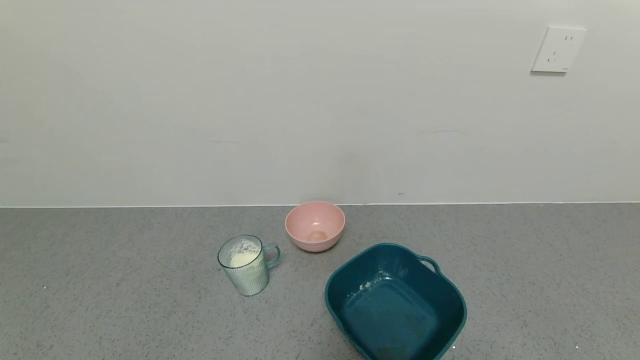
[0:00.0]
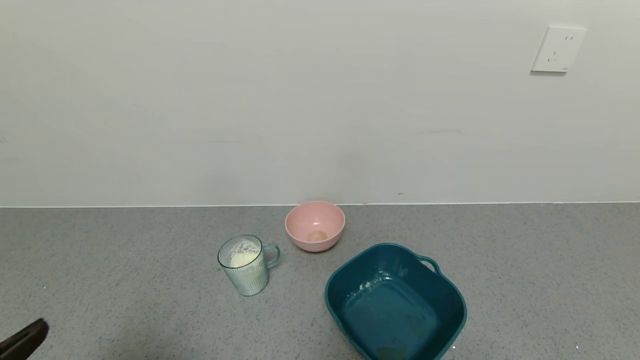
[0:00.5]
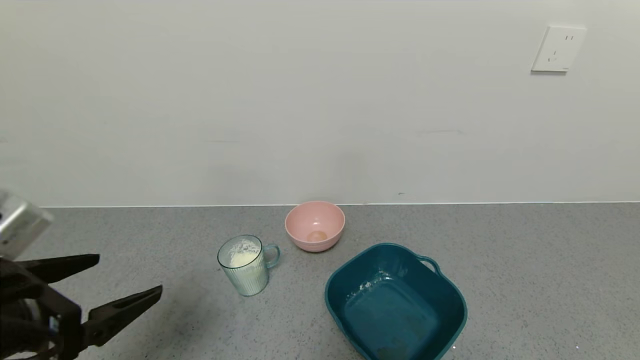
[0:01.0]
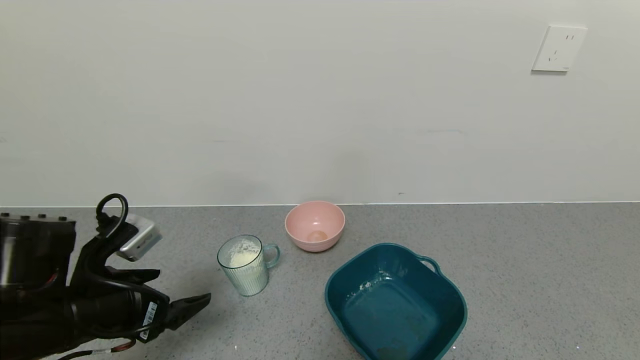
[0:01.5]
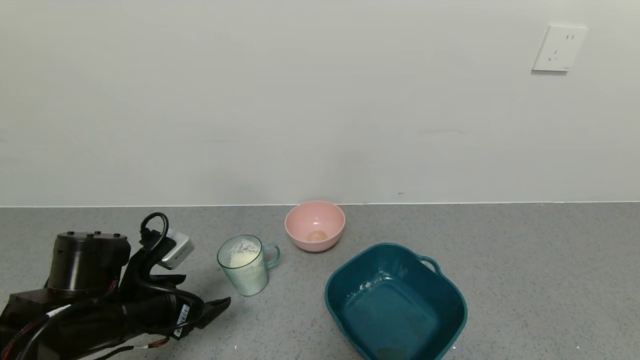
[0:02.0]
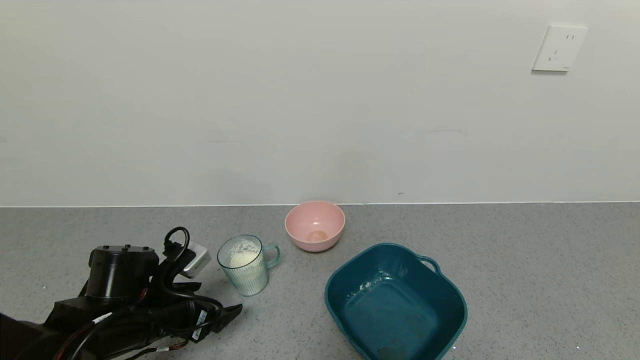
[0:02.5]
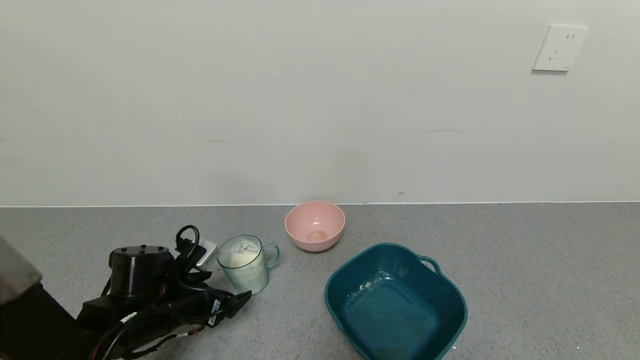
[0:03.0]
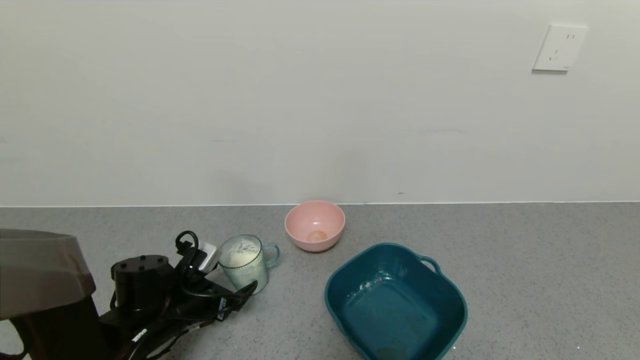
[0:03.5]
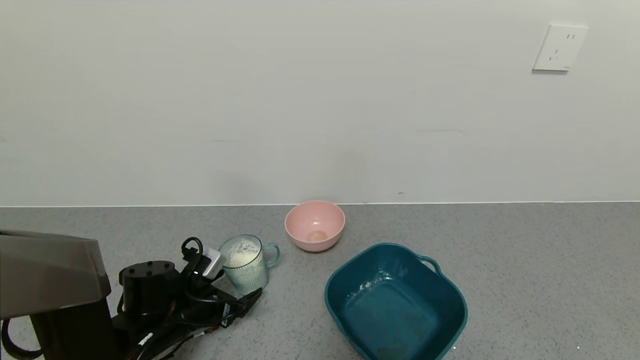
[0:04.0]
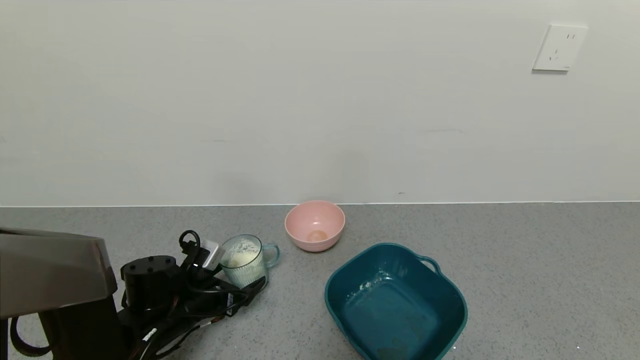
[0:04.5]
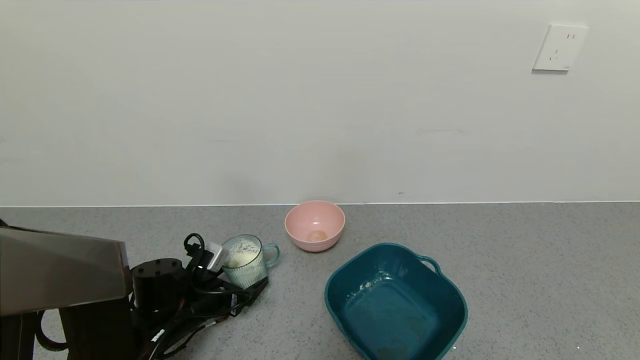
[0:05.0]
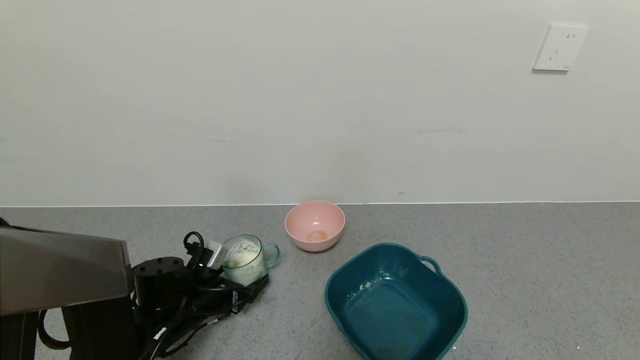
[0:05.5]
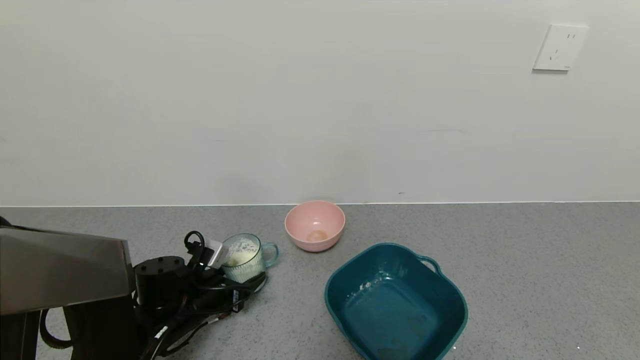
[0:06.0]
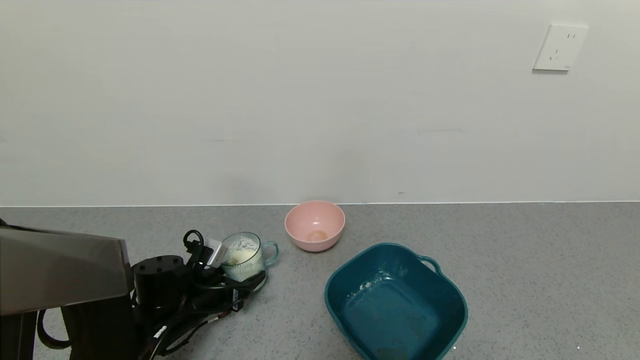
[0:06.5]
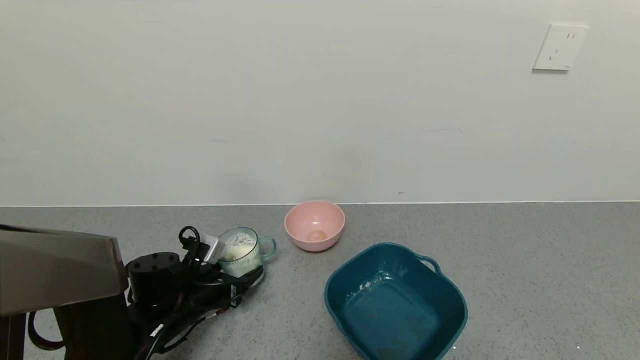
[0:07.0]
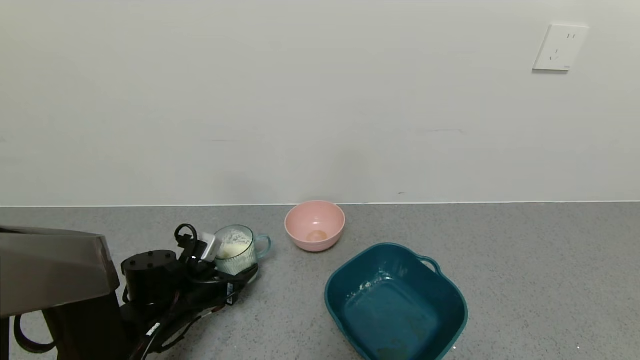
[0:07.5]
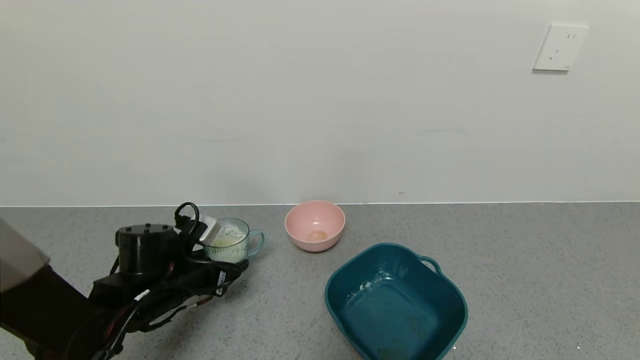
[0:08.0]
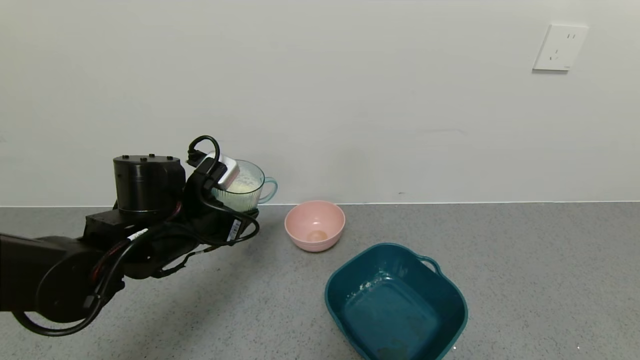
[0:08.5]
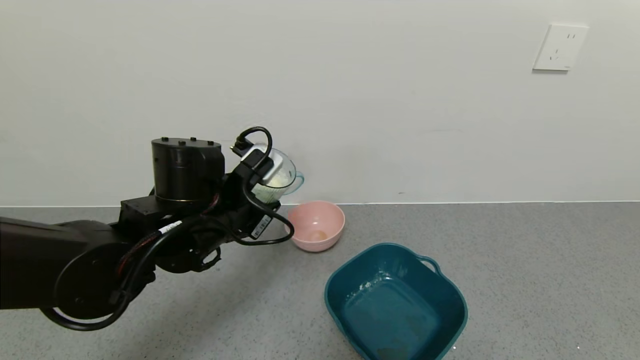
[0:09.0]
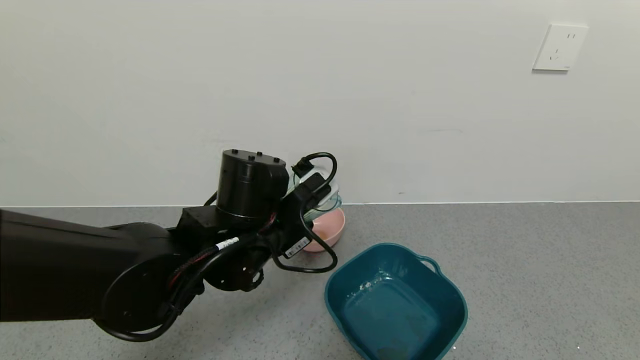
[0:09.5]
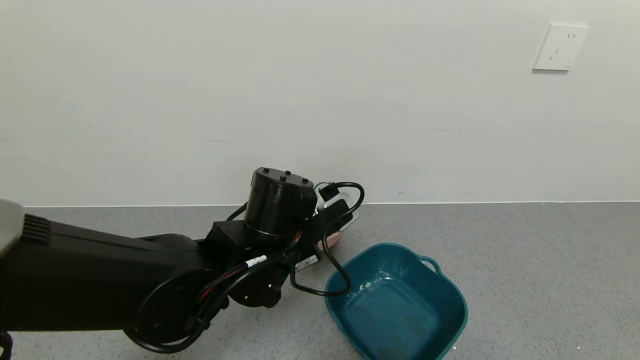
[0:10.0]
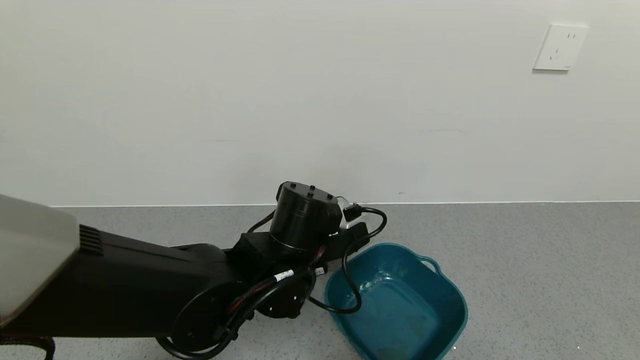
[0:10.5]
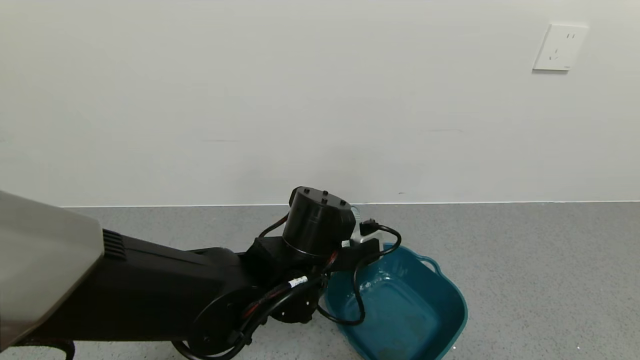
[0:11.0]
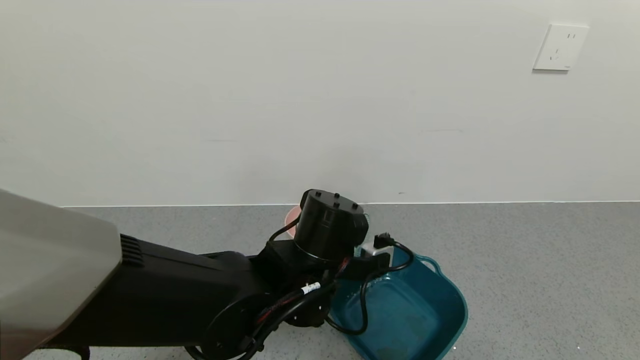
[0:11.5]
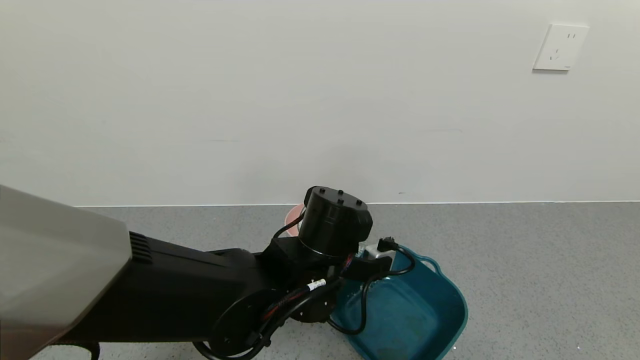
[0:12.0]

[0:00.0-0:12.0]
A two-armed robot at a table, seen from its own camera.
Task of the whole recording: use a gripper to pick up the cup and pour the powder into a bowl or tray.
Step, 0:00.0 to 0:06.0: Grasp the glass of powder with the left gripper.
0:00.0 to 0:02.0: The left gripper heads forward, covering roughly 25 cm.
0:02.0 to 0:04.0: The left gripper travels downward by some 10 cm.
0:04.0 to 0:06.0: The left gripper closes.
0:06.0 to 0:08.0: The left gripper moves upward, approximately 5 cm.
0:08.0 to 0:10.0: The left gripper heads to the right and upward, covering some 20 cm.
0:10.0 to 0:12.0: The left gripper shifts by approximately 5 cm.

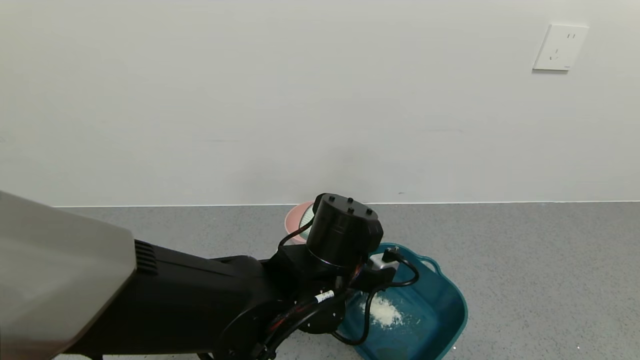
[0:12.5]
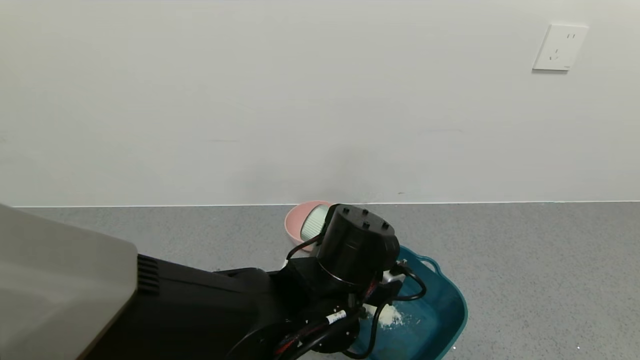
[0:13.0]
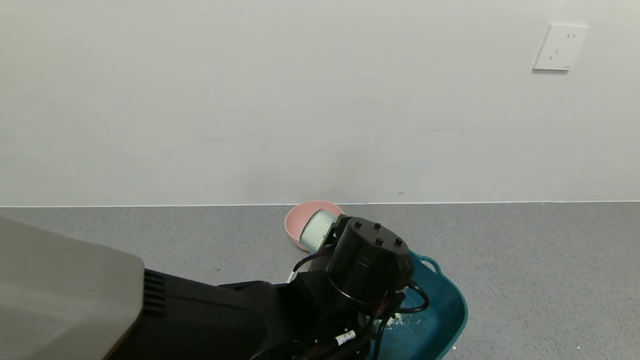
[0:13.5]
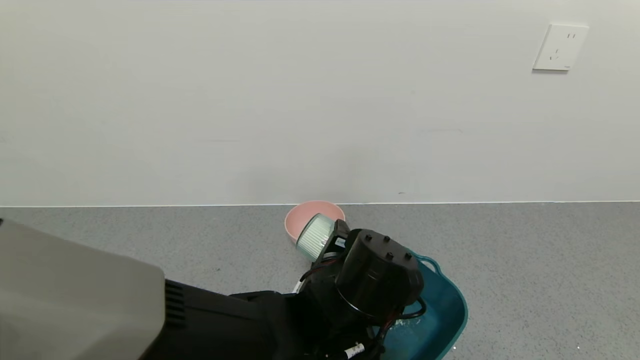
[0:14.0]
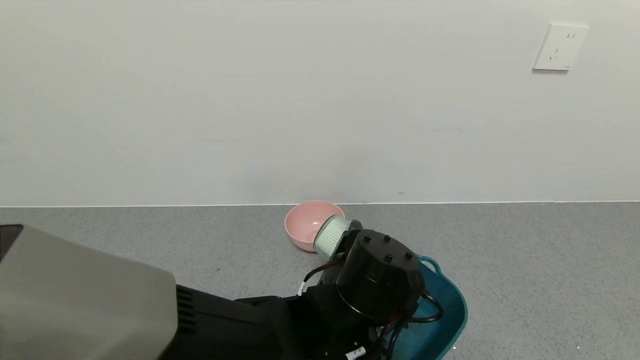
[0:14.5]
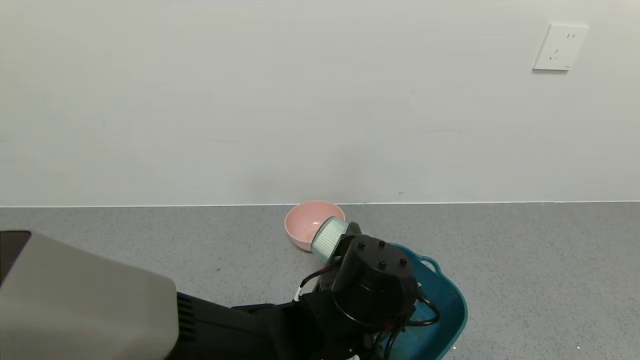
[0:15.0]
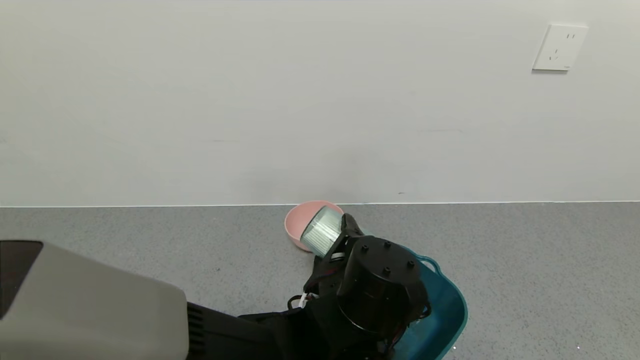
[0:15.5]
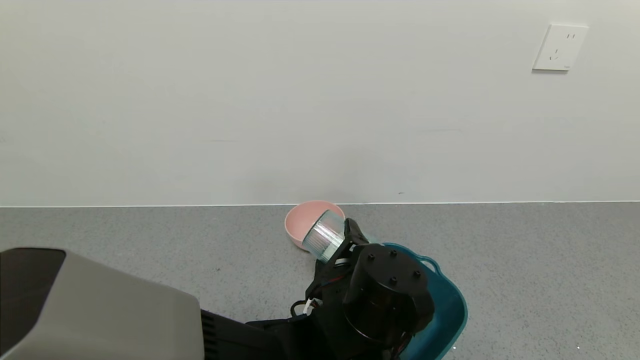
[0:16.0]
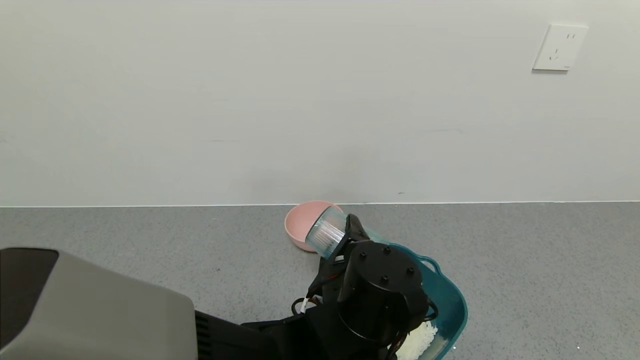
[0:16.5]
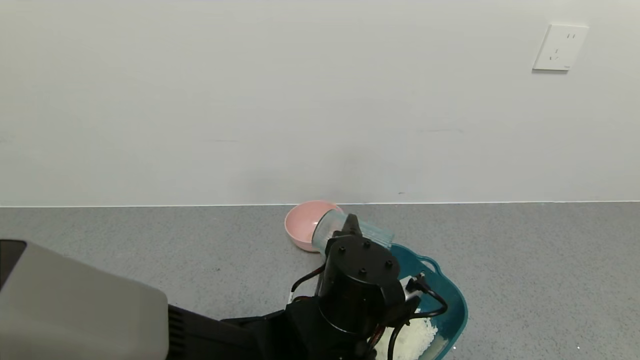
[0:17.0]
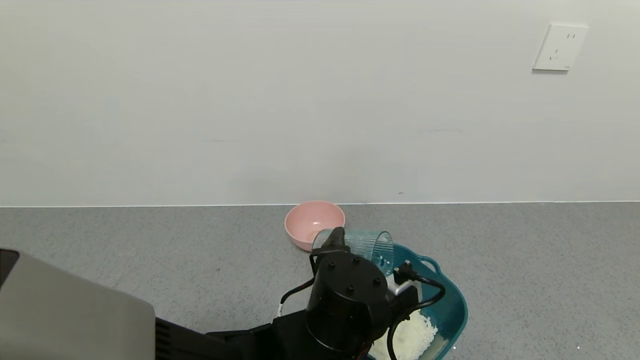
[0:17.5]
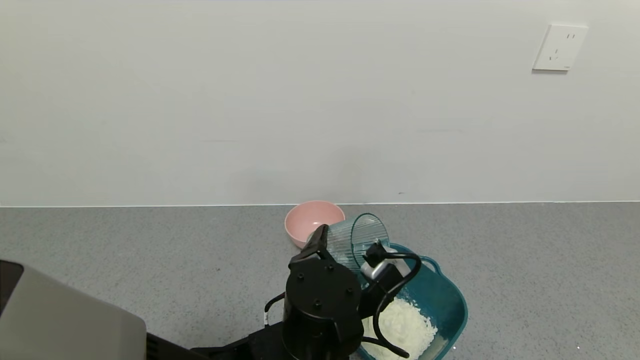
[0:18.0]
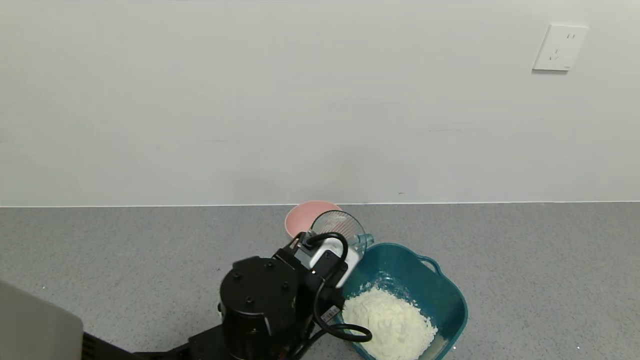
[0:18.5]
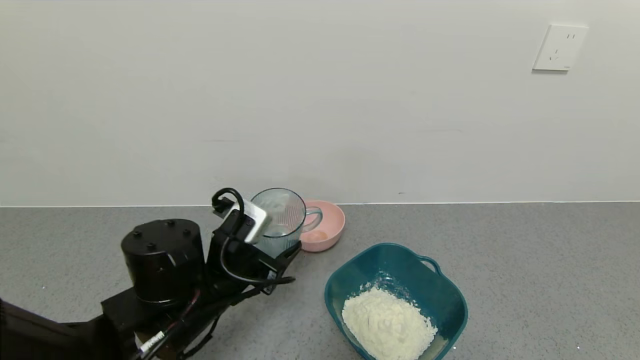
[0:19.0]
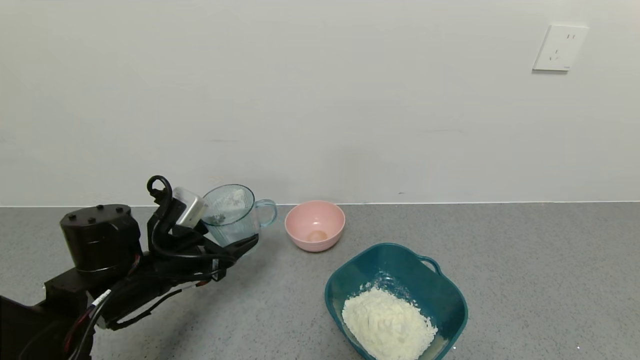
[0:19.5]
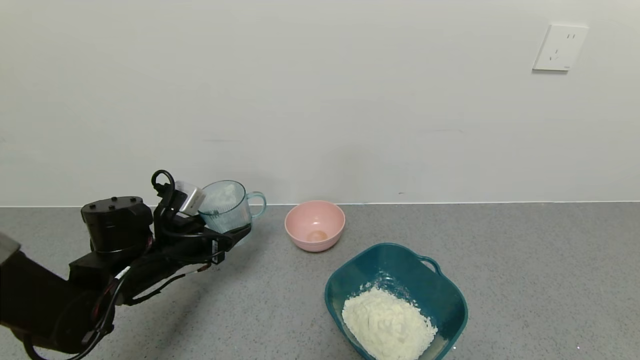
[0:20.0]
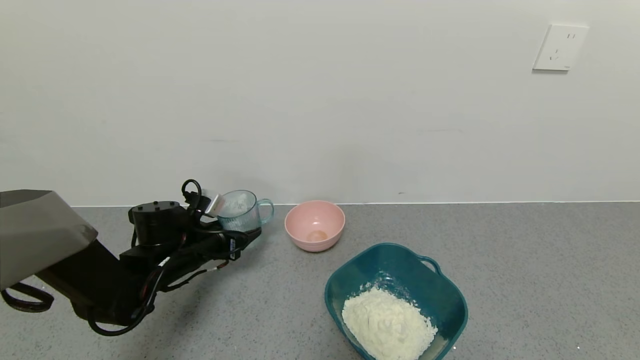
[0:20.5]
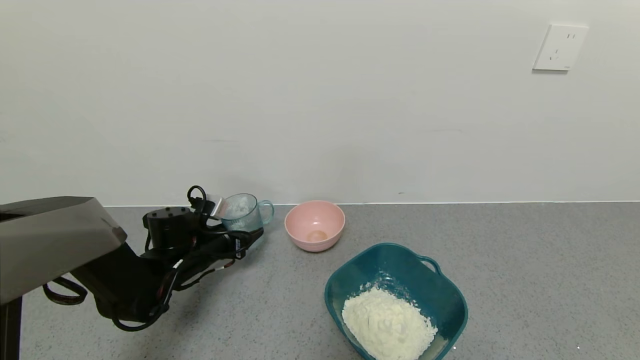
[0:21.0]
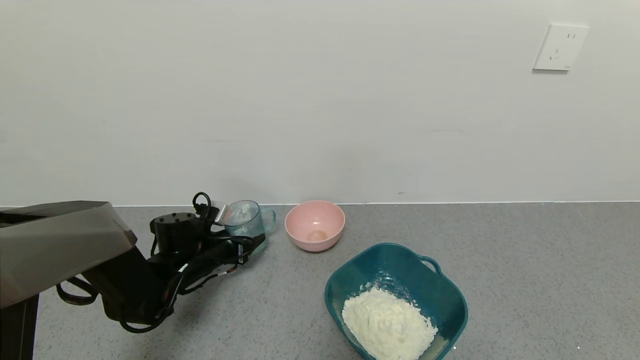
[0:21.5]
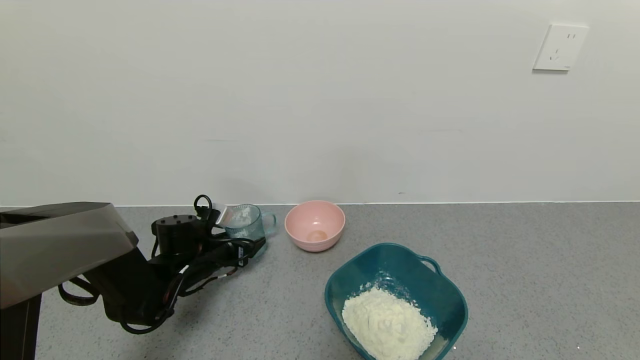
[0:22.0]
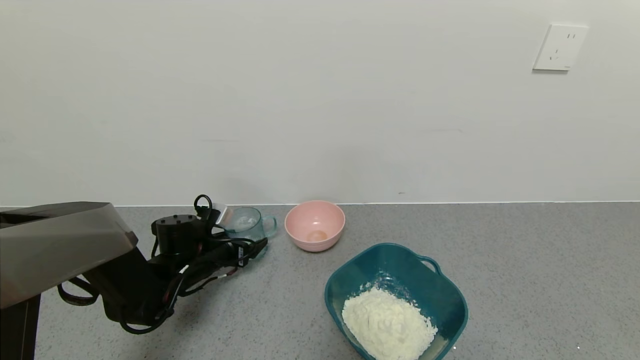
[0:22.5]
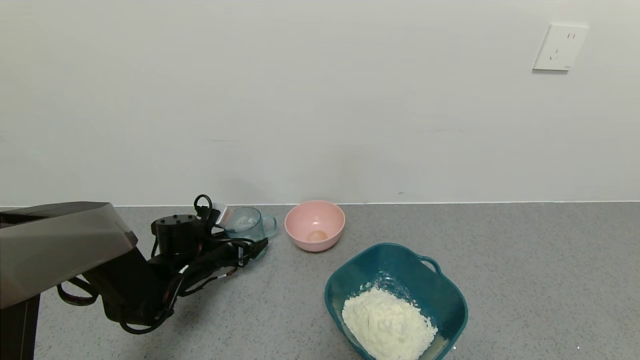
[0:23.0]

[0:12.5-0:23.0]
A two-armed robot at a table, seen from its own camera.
Task of the whole recording: use a gripper to pick up the cup and pour the powder into a bowl or tray.
Step, 0:12.5 to 0:16.0: Pour the powder into the pink bowl with the left gripper.
0:12.5 to 0:14.5: The grippers make only small movements.
0:14.5 to 0:16.5: The grippers stay close to where they were, moving slightly.
0:16.5 to 0:19.0: The left gripper is displaced to the left by approximately 15 cm.
0:19.0 to 0:21.0: The left gripper goes roughly 20 cm forward, to the left and downward.
0:21.0 to 0:23.0: The left gripper opens.
